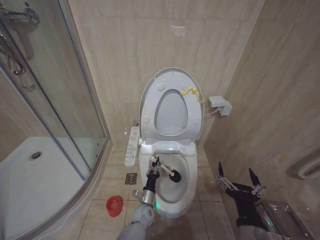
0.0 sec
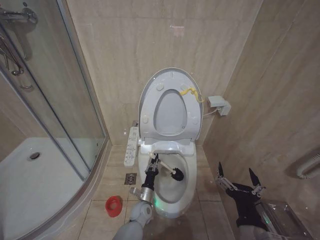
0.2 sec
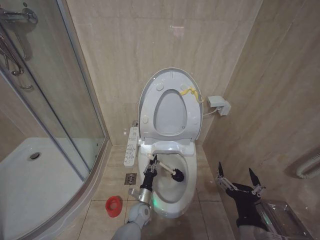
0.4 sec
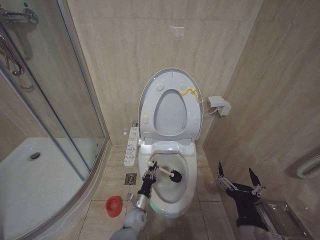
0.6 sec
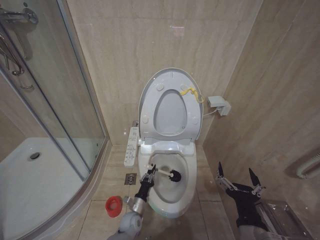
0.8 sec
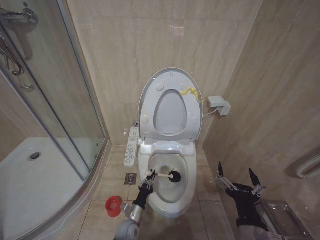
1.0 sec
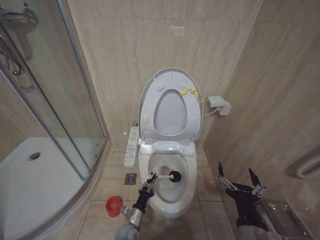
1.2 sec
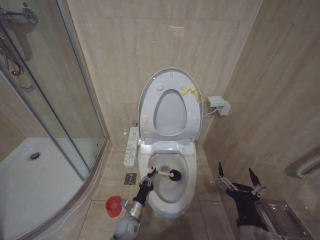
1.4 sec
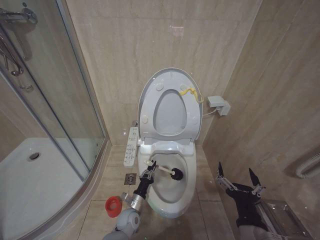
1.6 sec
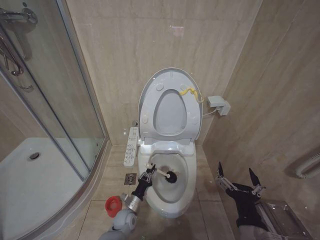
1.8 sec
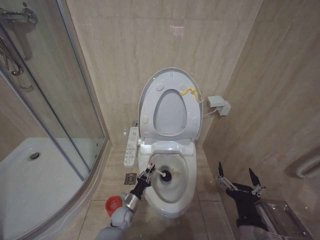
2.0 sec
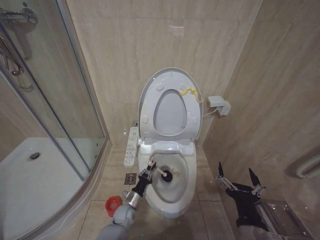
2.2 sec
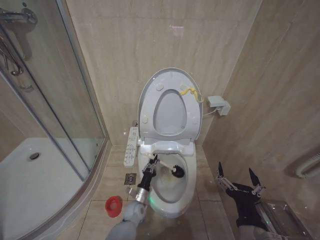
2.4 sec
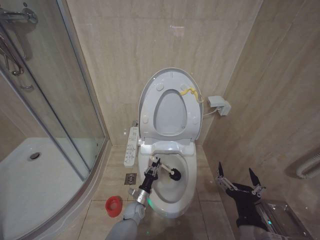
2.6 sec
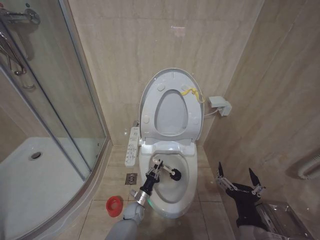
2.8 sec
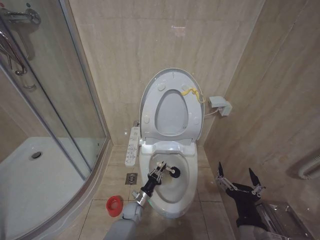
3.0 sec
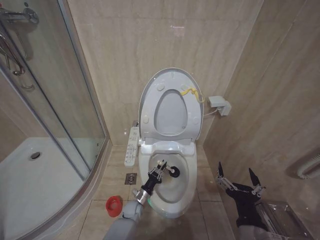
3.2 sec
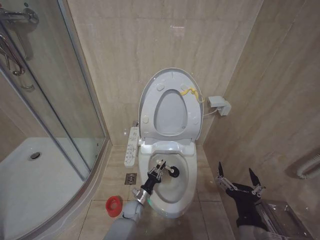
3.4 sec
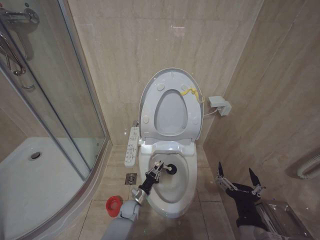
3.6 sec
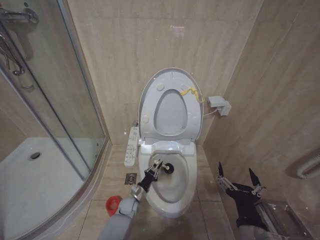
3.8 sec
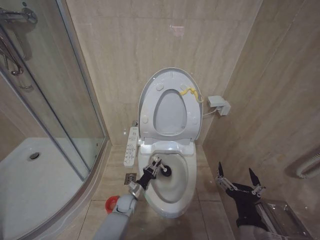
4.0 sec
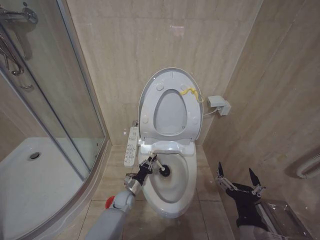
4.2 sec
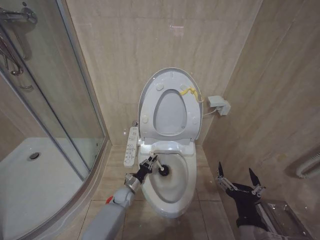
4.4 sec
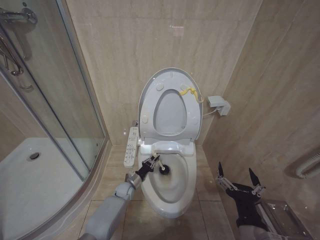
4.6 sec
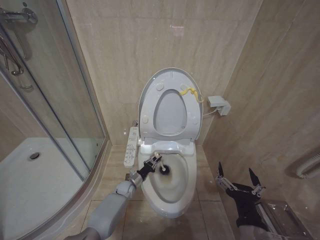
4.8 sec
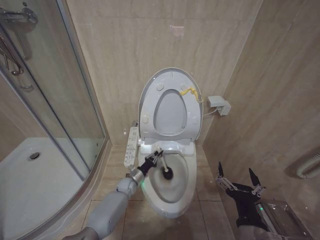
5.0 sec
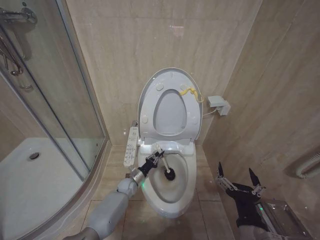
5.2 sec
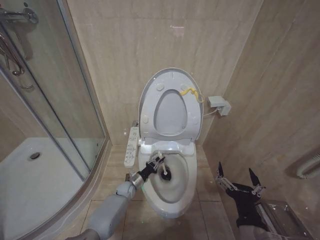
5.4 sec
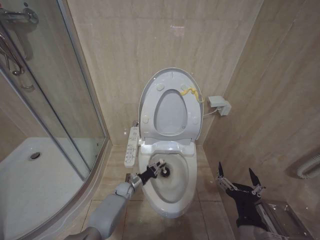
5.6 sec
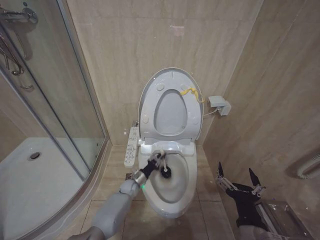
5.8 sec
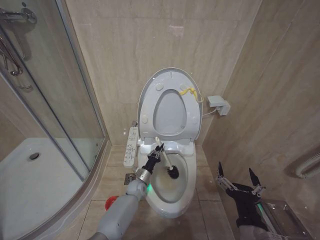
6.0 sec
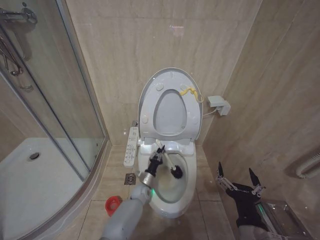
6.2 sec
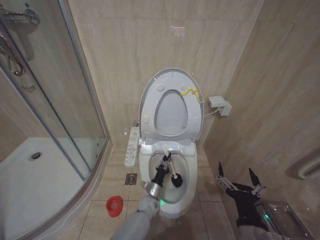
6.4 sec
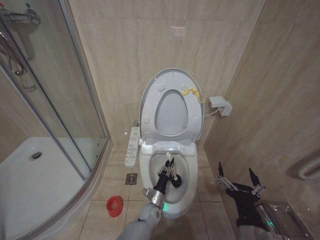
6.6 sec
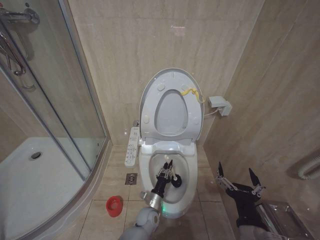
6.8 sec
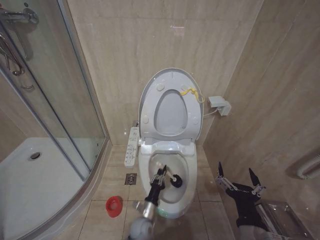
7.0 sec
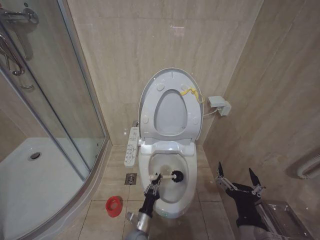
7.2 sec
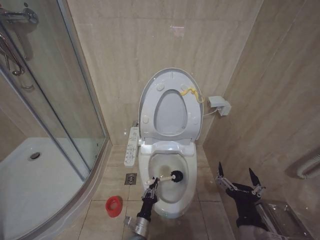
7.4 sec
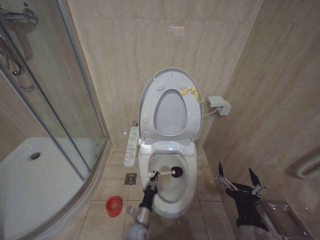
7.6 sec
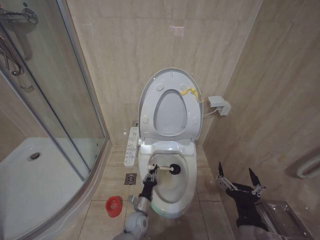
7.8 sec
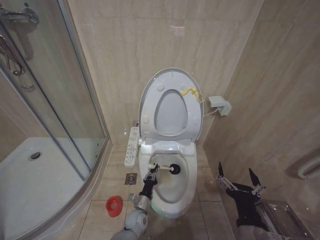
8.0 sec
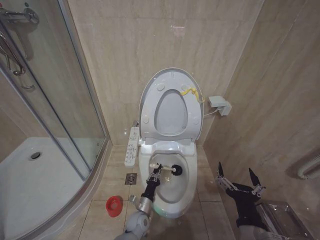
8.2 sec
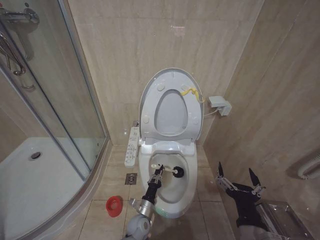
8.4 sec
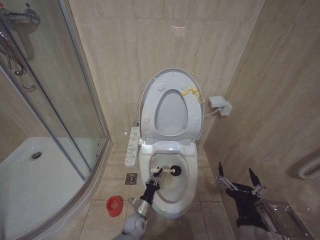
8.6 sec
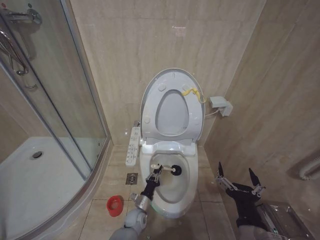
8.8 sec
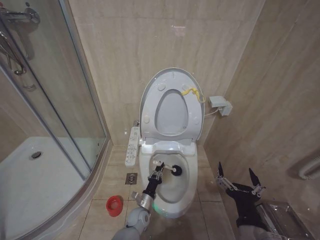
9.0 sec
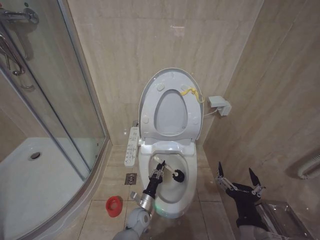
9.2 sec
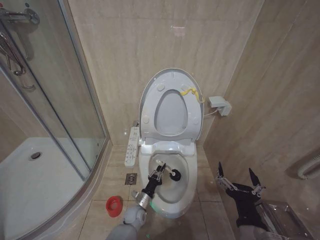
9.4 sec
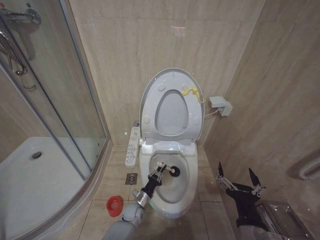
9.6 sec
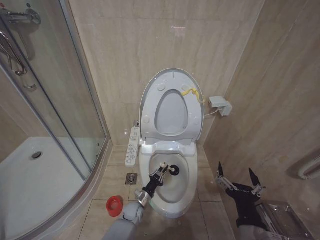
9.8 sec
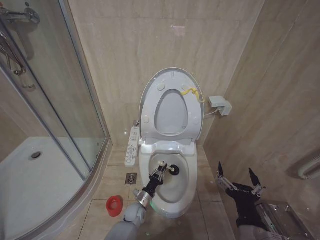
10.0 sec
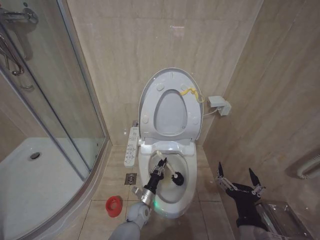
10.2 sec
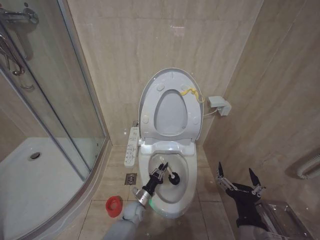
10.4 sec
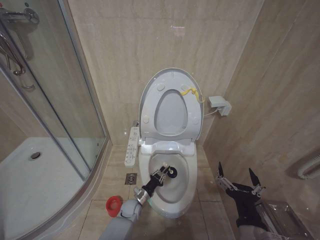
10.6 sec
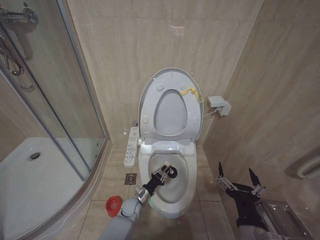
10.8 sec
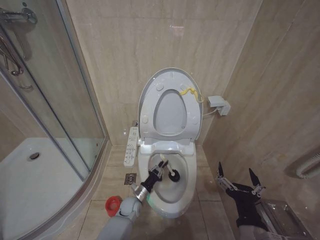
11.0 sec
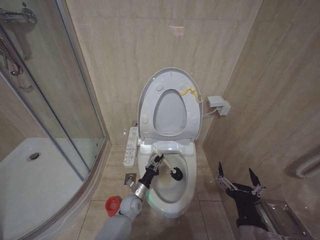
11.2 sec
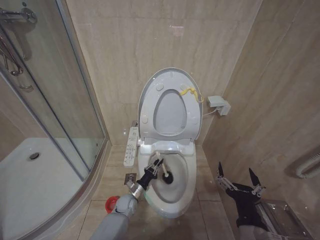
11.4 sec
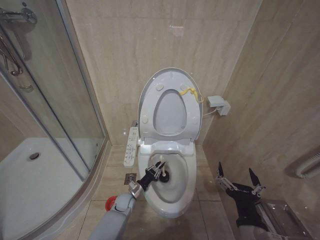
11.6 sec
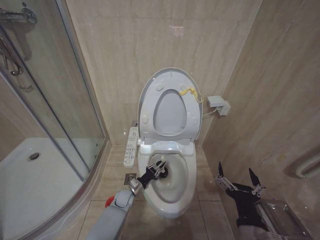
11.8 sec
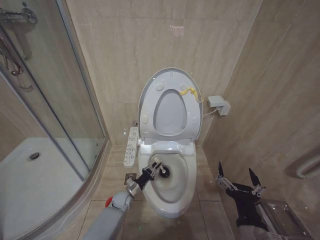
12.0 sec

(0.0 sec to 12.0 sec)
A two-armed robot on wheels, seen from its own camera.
Task of the whole recording: Open the toilet lid, clean the toilet bowl with a toilet brush, close the toilet lid, and flush.
0.0 sec - 1.6 sec: The left gripper goes roughly 5 cm to the left.
1.6 sec - 3.0 sec: The left gripper moves forward, some 5 cm.
3.0 sec - 4.4 sec: The left gripper heads upward, covering about 5 cm.
4.4 sec - 6.0 sec: The left gripper goes about 5 cm to the right.
6.0 sec - 7.6 sec: The left gripper shifts about 20 cm backward.
7.6 sec - 9.0 sec: The left gripper moves forward, roughly 10 cm.
10.4 sec - 12.0 sec: The left gripper heads to the left and forward, covering roughly 10 cm.

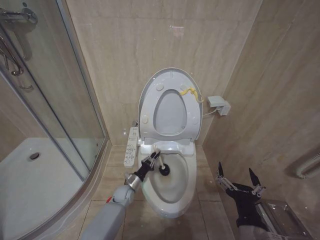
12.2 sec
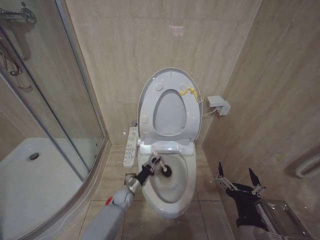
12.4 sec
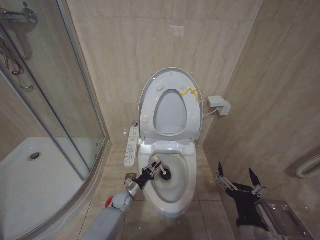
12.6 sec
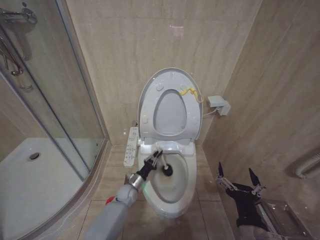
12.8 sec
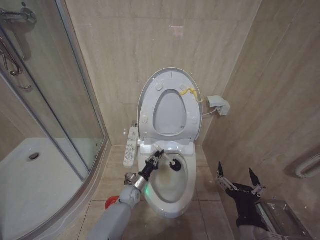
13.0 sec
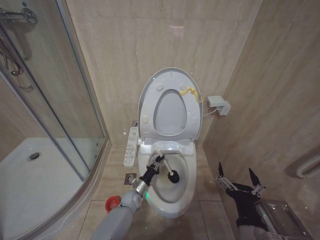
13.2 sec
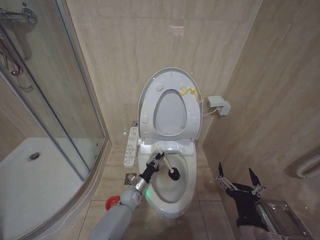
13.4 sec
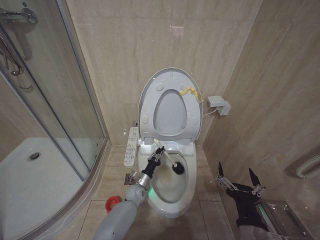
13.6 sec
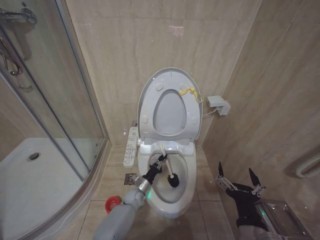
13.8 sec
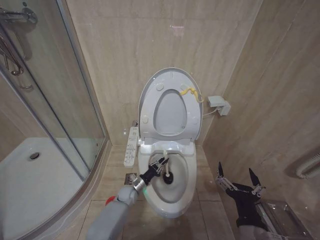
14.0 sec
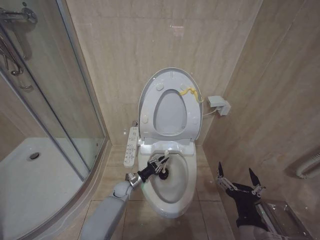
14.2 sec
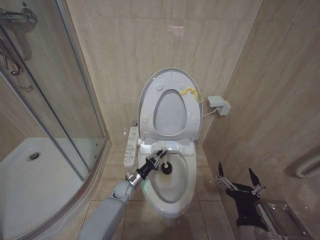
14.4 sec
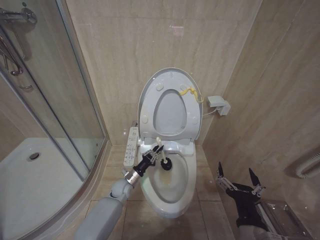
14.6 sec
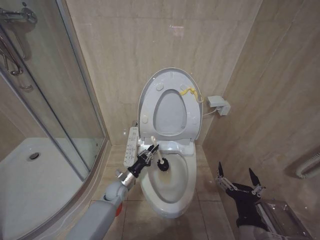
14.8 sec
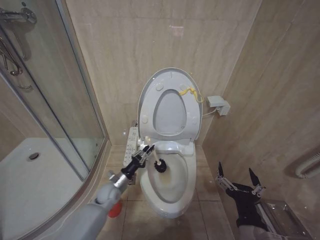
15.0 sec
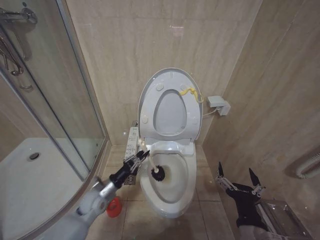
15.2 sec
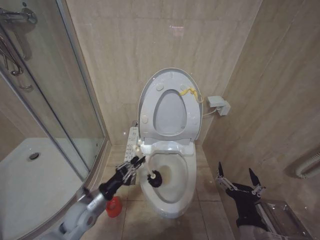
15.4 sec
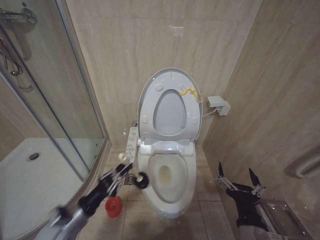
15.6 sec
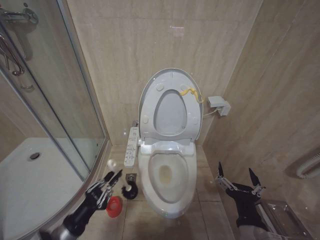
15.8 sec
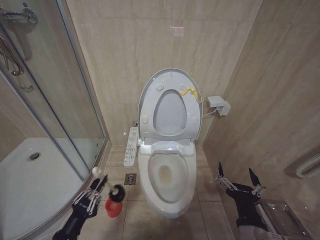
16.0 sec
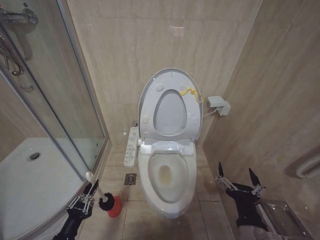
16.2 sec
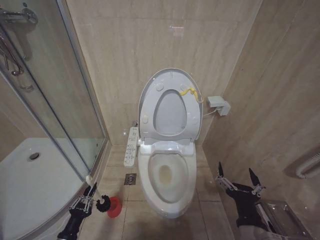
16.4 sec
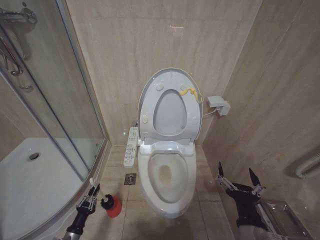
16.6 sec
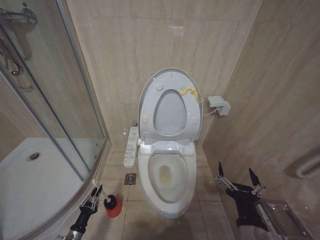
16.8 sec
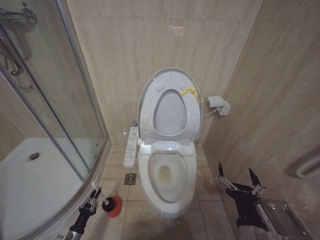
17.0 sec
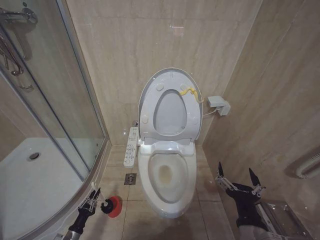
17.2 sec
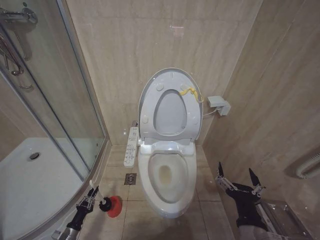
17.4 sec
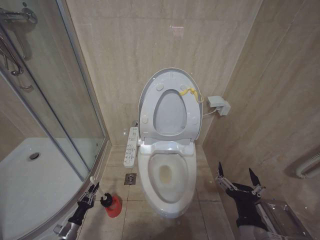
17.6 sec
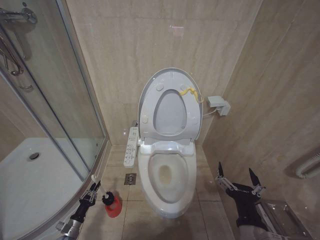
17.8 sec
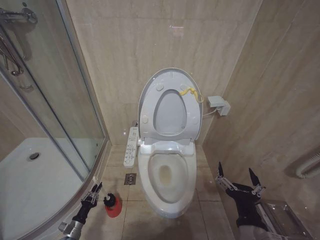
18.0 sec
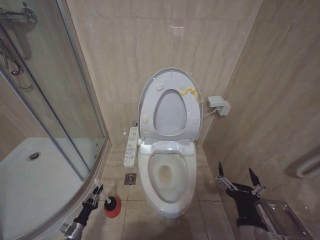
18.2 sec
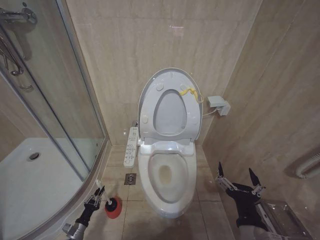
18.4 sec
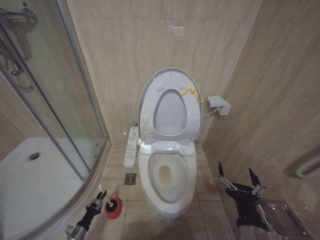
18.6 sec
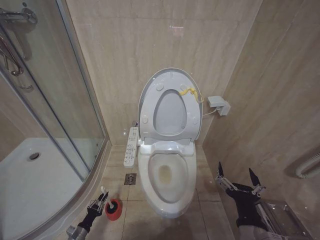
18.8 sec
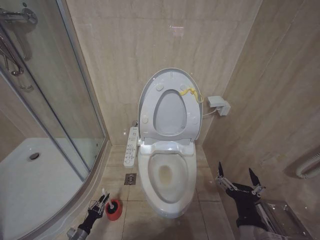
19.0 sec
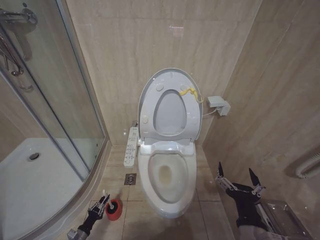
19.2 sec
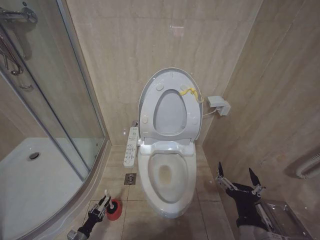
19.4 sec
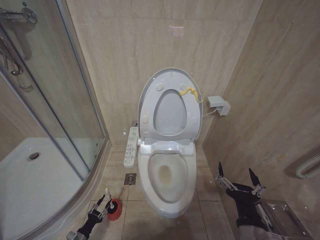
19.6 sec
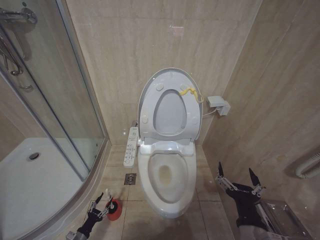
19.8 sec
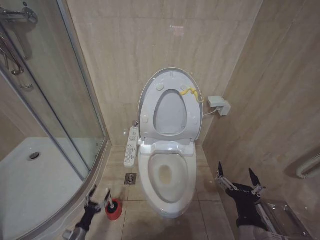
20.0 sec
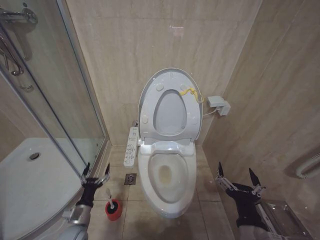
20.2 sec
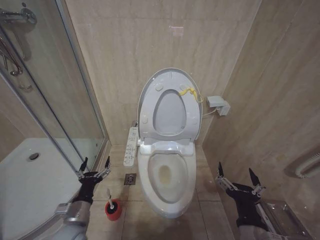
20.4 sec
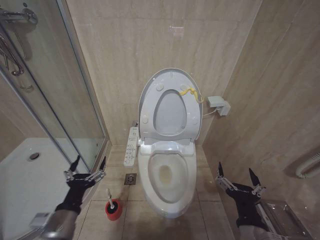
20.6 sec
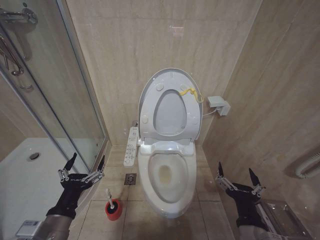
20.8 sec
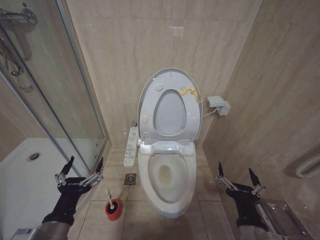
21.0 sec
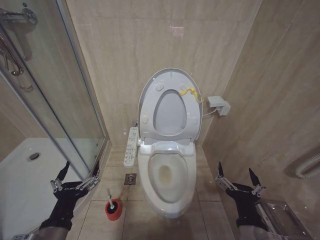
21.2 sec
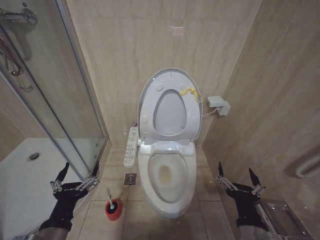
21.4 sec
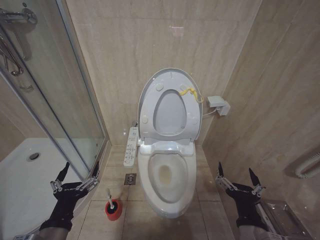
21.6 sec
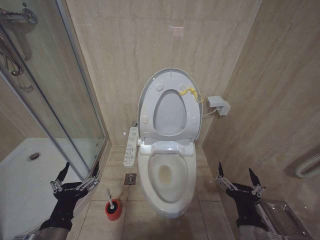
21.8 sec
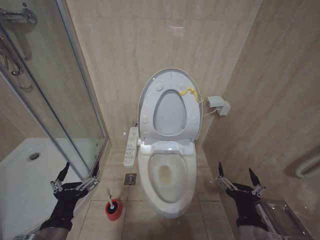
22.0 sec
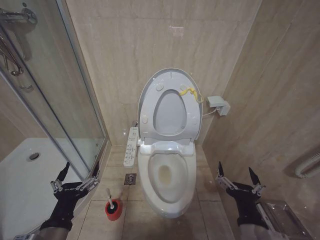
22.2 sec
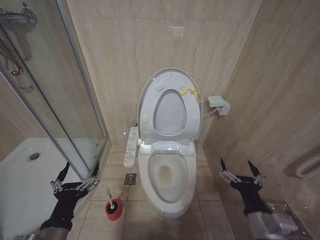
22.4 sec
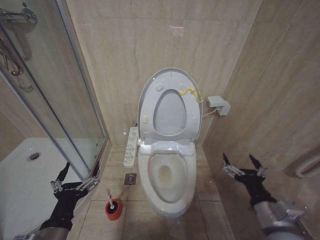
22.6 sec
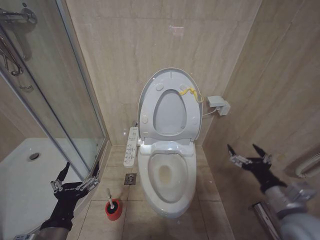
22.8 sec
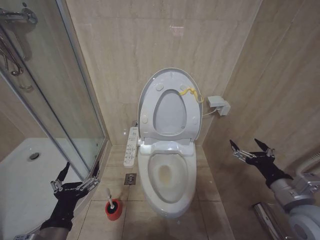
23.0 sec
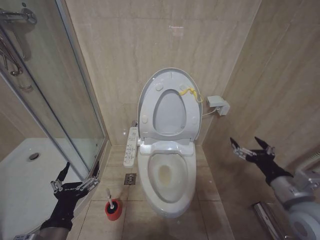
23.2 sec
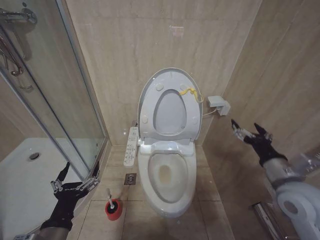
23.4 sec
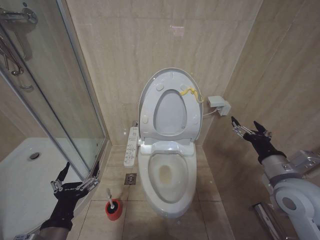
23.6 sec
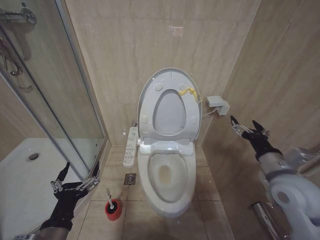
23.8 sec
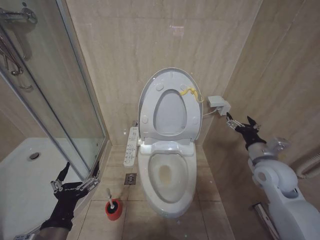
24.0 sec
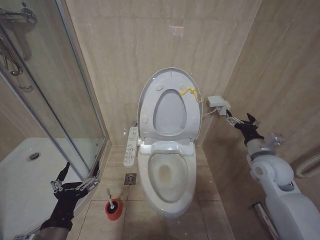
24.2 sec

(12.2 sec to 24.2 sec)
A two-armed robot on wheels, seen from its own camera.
Task of the whole recording: Open the toilet lid, clean the toilet bowl with a toilet brush, close the toilet lid, and flush.
12.2 sec - 13.8 sec: The left gripper shifts approximately 5 cm to the right.
13.8 sec - 15.2 sec: The left gripper heads to the left and upward, covering some 20 cm.
15.2 sec - 16.6 sec: The left gripper moves backward, to the left and downward, about 25 cm.
16.6 sec - 18.2 sec: The left gripper heads downward and forward, covering approximately 15 cm.
18.2 sec - 19.8 sec: The left gripper opens up.
19.8 sec - 21.2 sec: The left gripper shifts some 40 cm upward, and opens up.
21.2 sec - 22.6 sec: The right gripper heads to the right, covering approximately 5 cm.
22.6 sec - 24.2 sec: The right gripper heads forward and to the right, covering some 20 cm.
